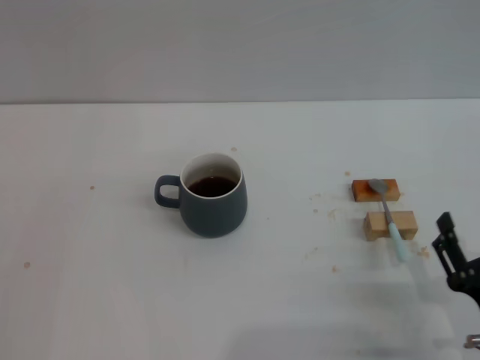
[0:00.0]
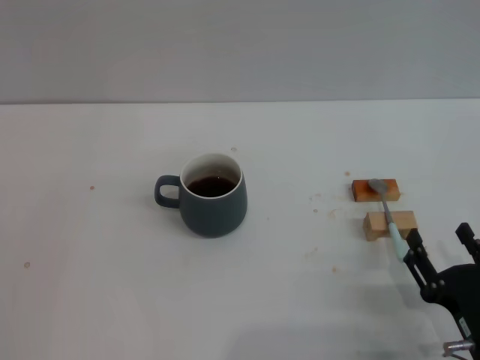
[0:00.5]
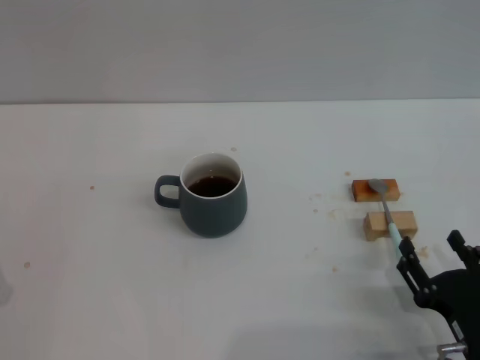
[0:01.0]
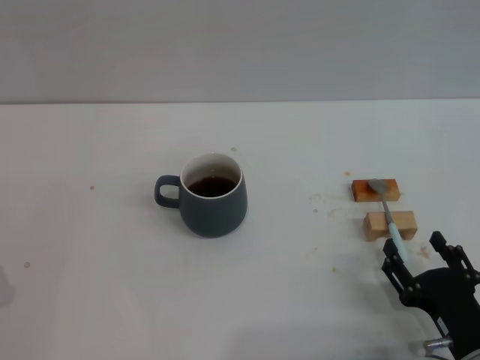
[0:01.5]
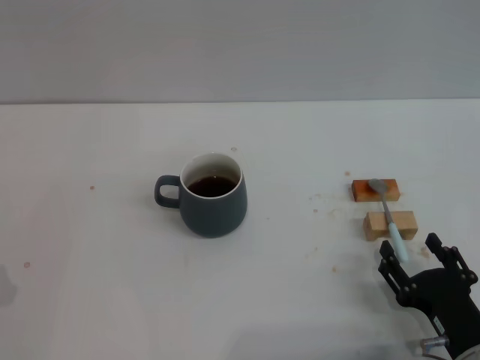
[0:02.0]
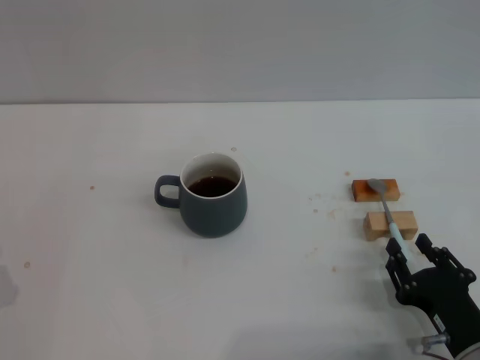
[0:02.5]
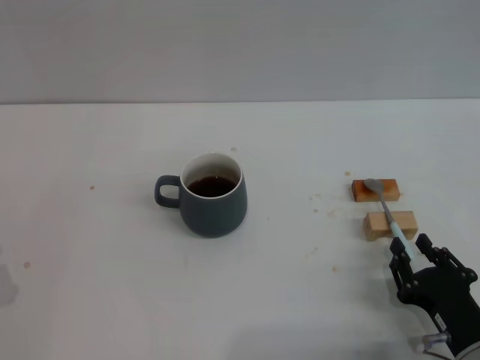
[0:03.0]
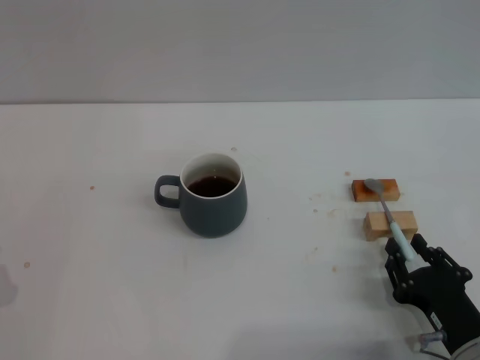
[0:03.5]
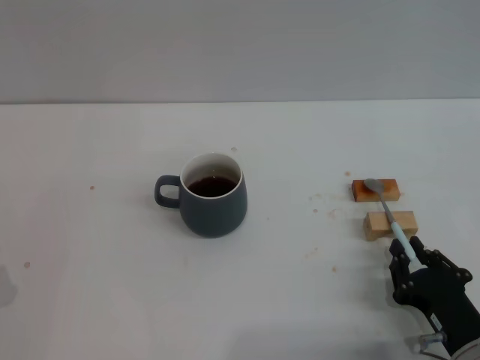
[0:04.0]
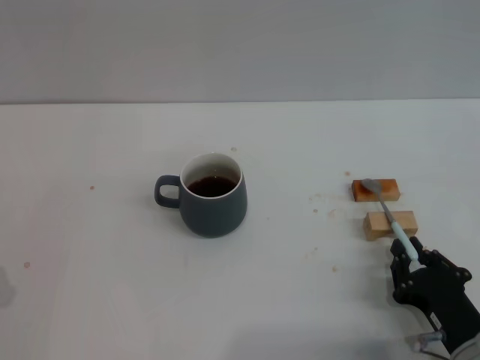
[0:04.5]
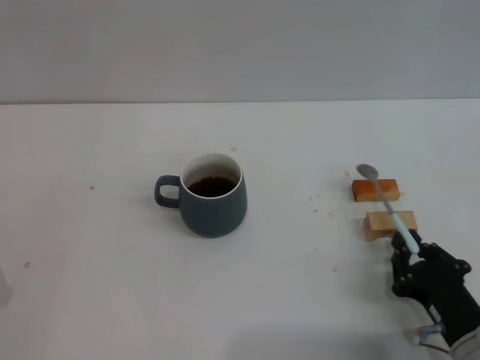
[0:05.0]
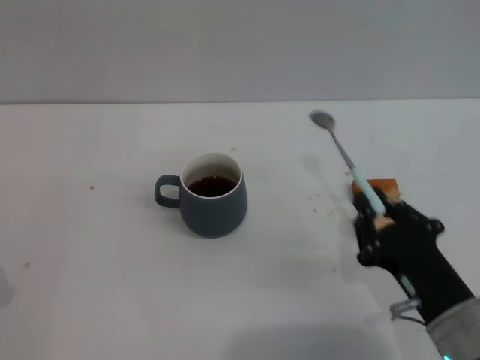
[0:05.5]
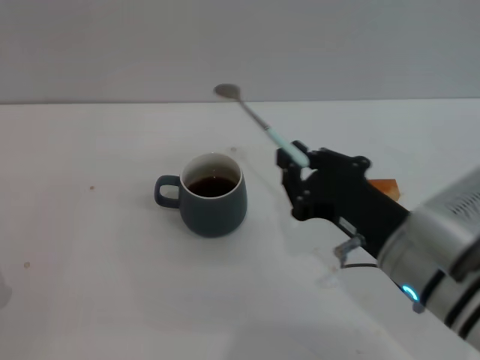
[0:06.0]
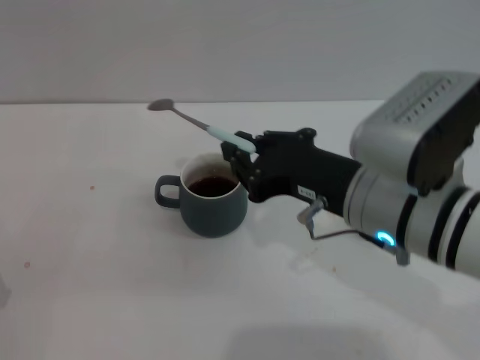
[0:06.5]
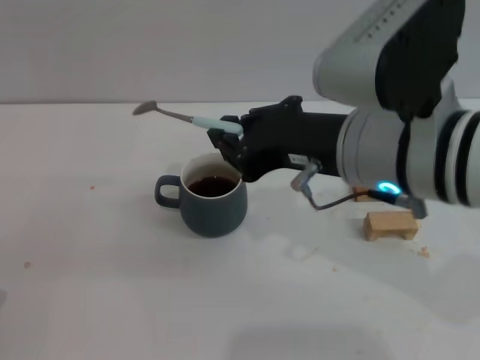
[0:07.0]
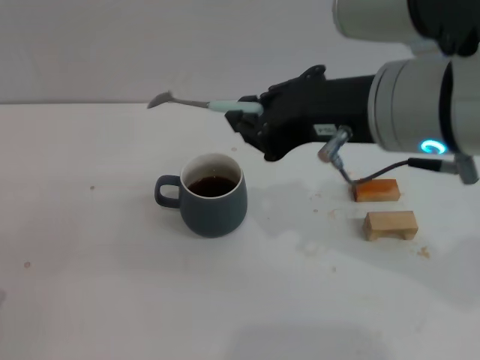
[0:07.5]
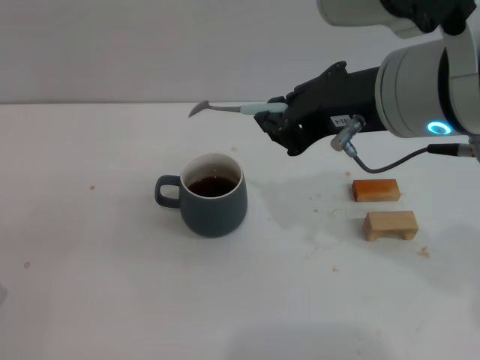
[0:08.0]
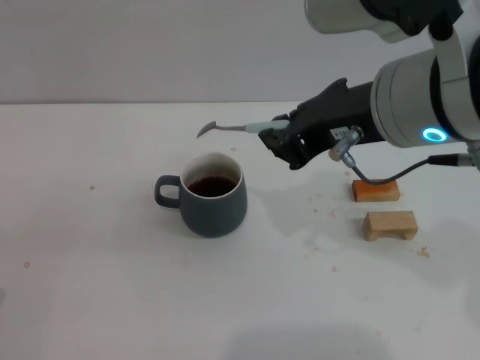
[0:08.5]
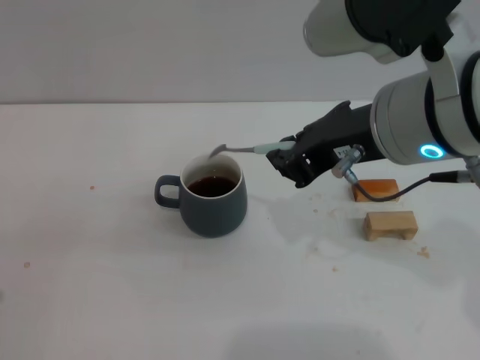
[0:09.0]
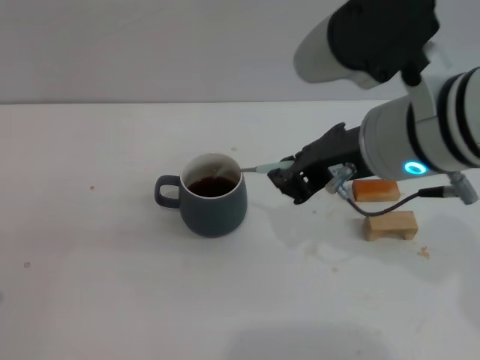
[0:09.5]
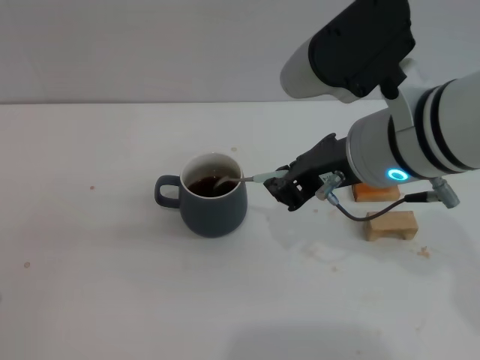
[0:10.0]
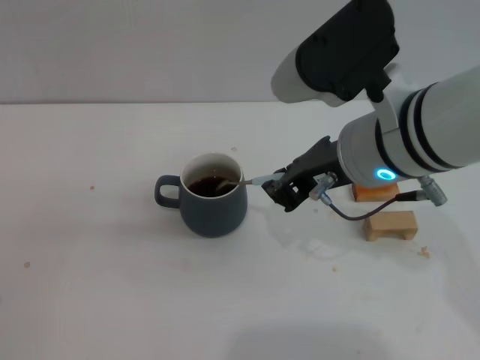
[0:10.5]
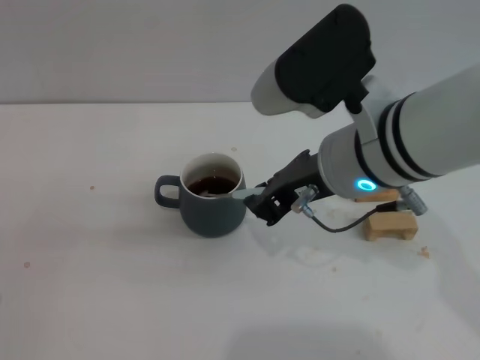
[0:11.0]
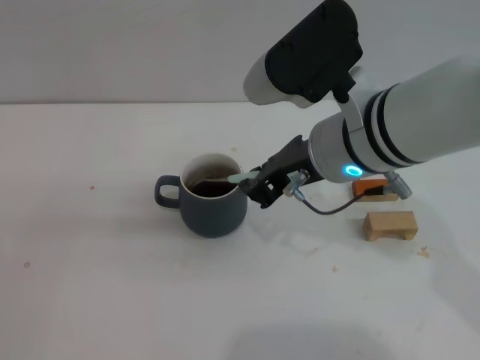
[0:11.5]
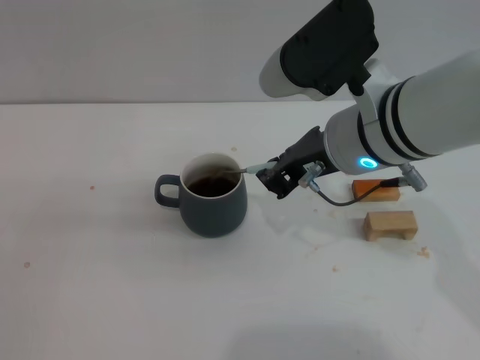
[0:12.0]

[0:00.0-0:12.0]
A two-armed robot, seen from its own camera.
Task of the whole recording: Move the grey cup to the center, lift the blue spoon, stir it three times in the cup, and put the spoon into the cup.
Step, 0:00.0 to 0:05.0: Pick up the spoon with the right gripper.
0:00.0 to 0:02.0: There are only small adjustments of the grippers.
0:02.0 to 0:04.0: The right gripper closes up.
0:04.0 to 0:06.0: The right gripper moves upward and to the left, about 15 cm.
0:06.0 to 0:08.0: The right gripper is displaced upward by about 15 cm.
0:08.0 to 0:10.0: The right gripper travels downward by some 5 cm.
0:10.0 to 0:12.0: The grippers move only a little.

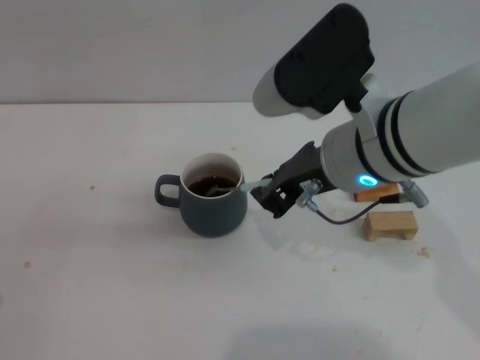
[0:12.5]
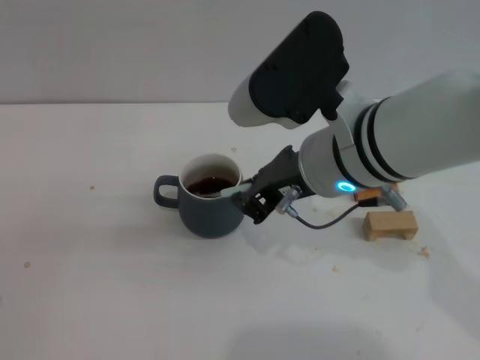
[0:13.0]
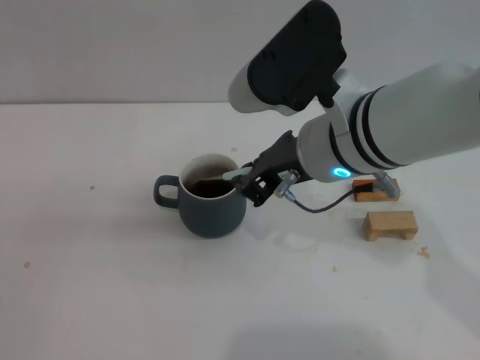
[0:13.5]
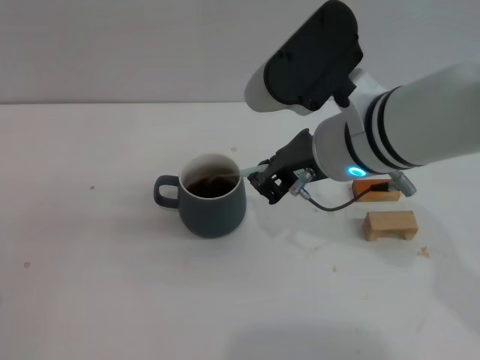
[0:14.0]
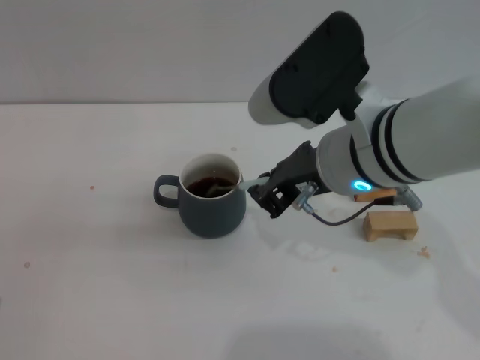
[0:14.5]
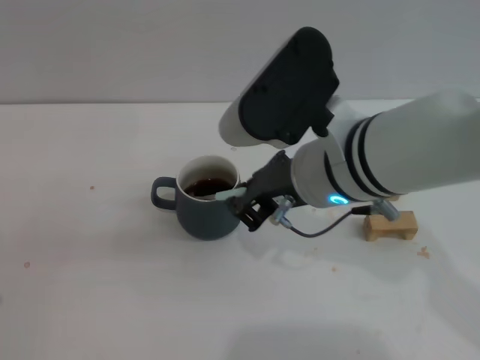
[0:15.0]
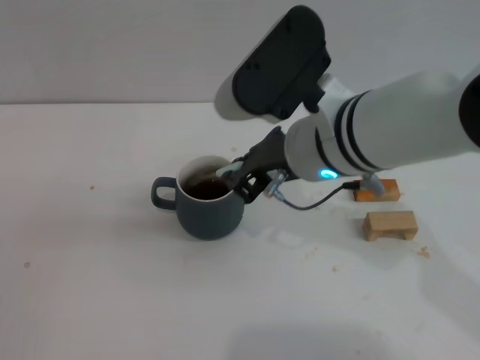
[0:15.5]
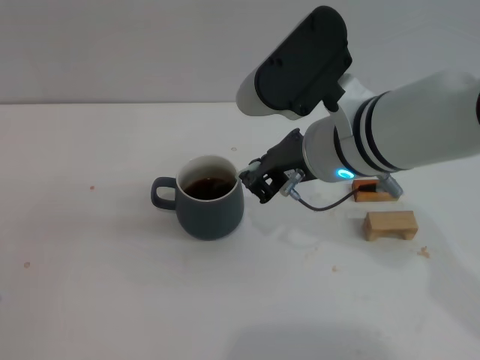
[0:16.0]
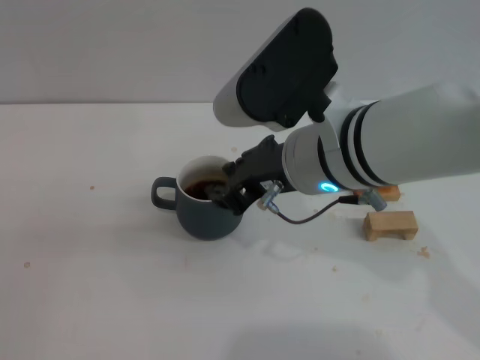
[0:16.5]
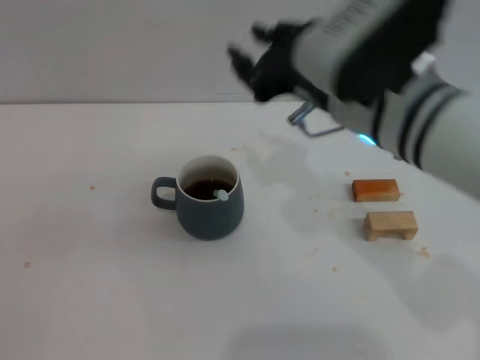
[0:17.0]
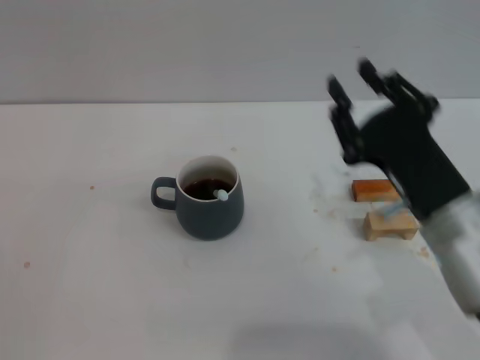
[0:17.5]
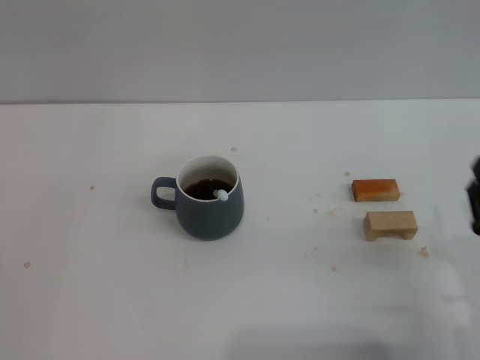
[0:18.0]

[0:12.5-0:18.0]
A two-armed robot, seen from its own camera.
Task of the whole recording: Move the grey cup to the center, lift the blue spoon, stir it three times in the cup, and put the spoon into the cup.
Step, 0:12.5 to 0:16.5: Stir the coffee in the cup with the right gripper.
0:12.5 to 0:16.0: There are only small adjustments of the grippers.
0:16.0 to 0:18.0: The right gripper goes roughly 25 cm to the right, downward and backward, and opens.
